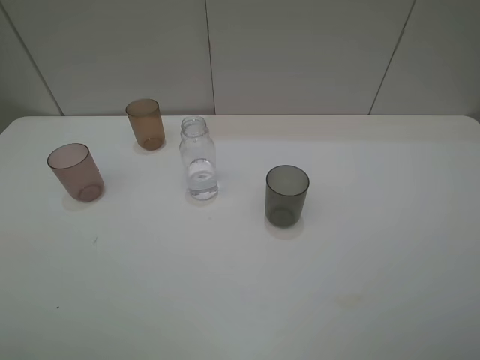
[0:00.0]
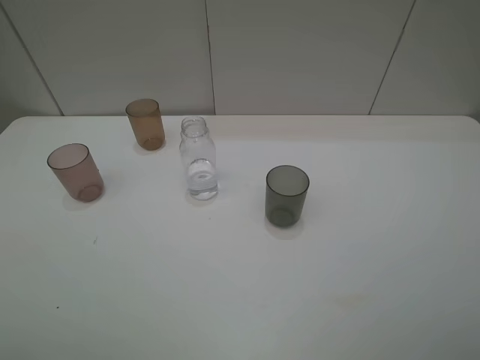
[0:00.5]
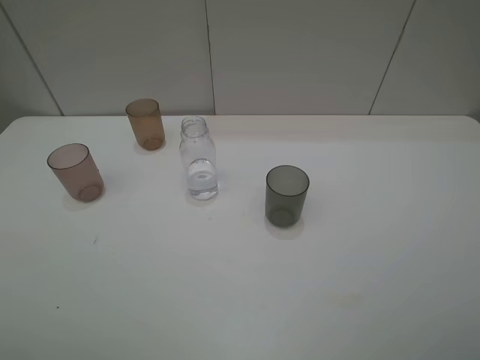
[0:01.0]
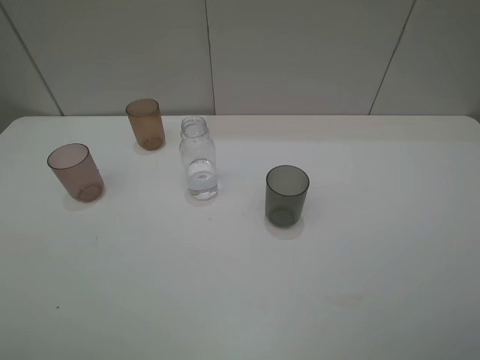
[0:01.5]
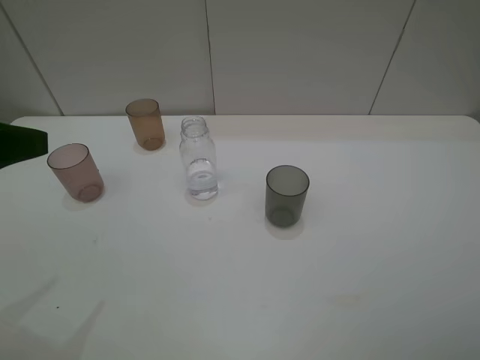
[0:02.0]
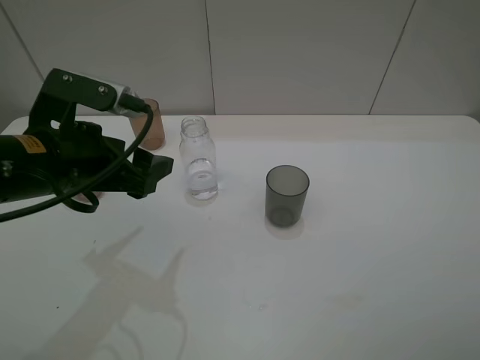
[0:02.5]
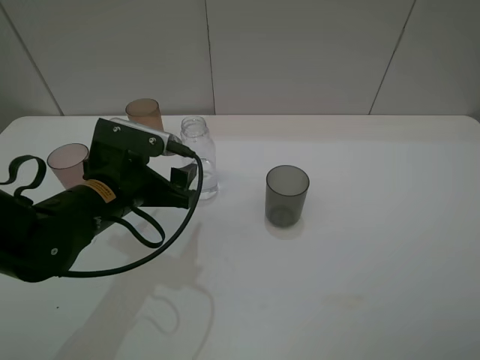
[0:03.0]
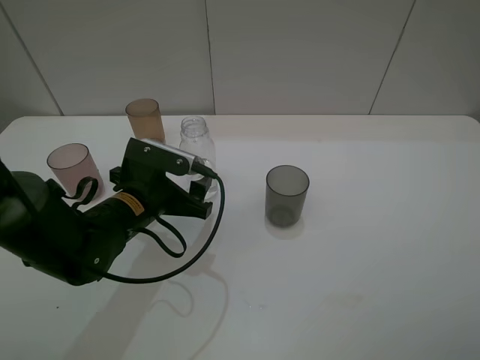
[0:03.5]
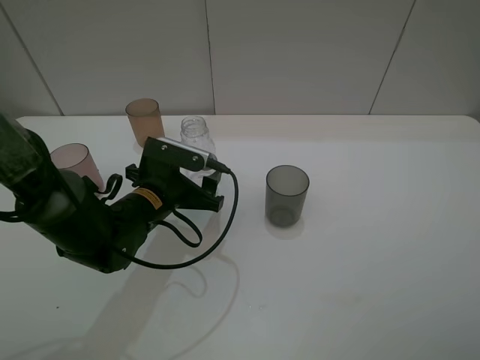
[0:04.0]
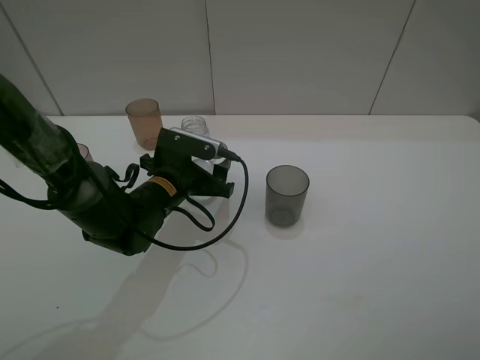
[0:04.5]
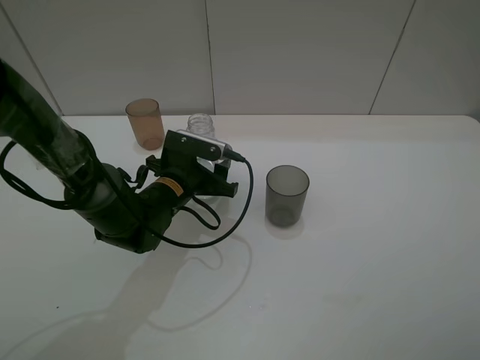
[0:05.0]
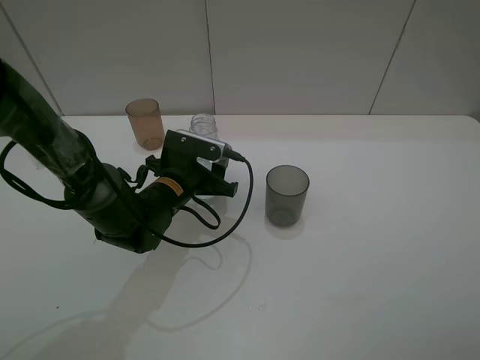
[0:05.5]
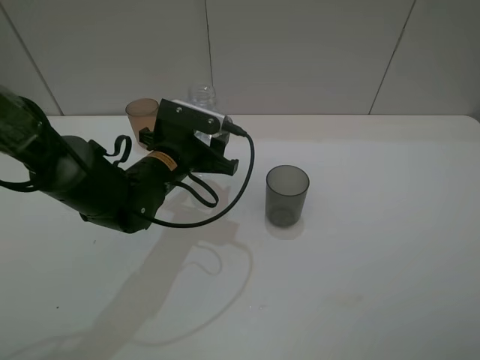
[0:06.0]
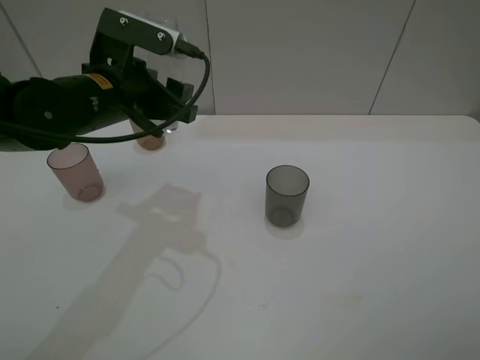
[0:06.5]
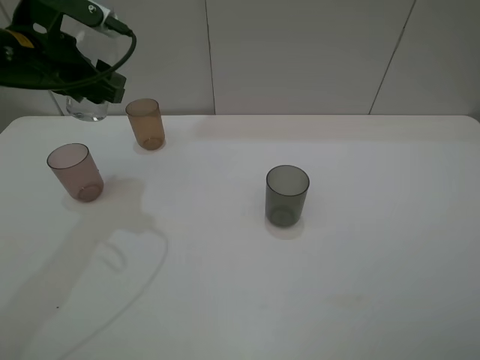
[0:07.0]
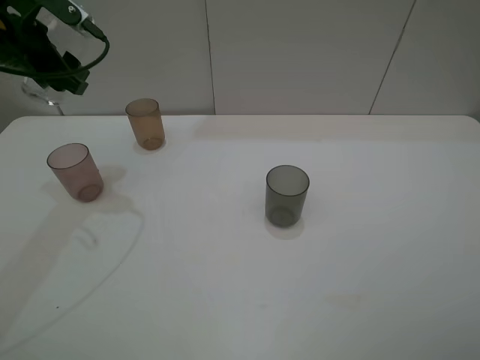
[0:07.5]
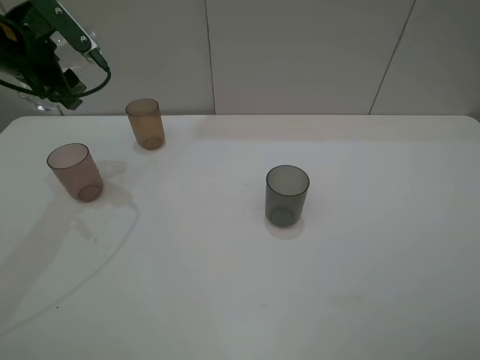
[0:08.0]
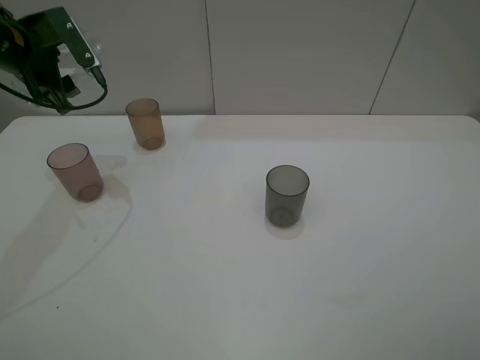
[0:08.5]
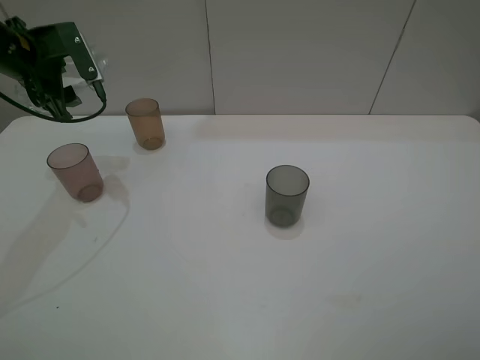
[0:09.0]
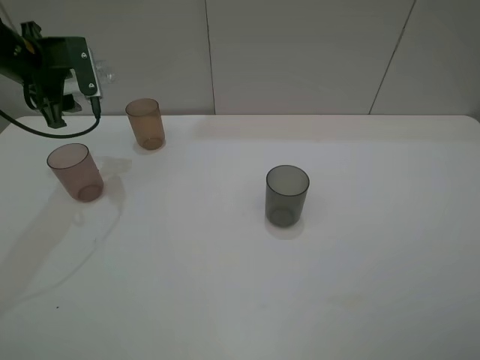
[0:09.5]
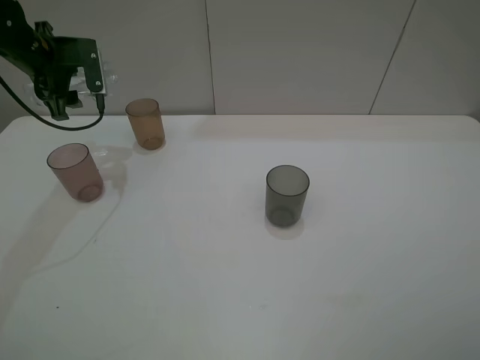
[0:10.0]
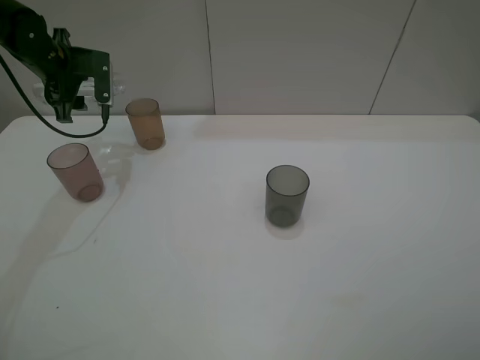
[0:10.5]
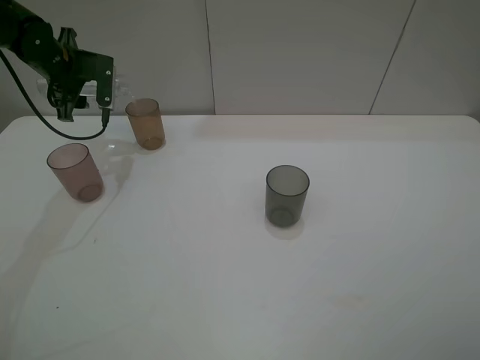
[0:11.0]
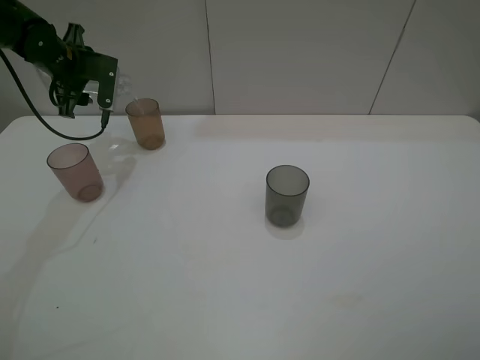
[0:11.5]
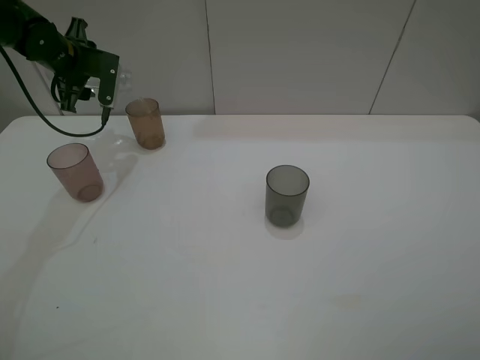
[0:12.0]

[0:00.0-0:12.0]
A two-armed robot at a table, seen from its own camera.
Task of the whole recording: pick up the bottle filled with water and pour water into the middle cup of the three cups.
Step, 0:00.0 to 0:04.5: Grasp the transparent bottle with the left gripper.
Step, 0:05.0 to 0:11.5: Pour water from transparent bottle to brown cup with the left gripper.
0:00.0 to 0:02.0: The left gripper heads forward, covering some 15 cm.
0:02.0 to 0:04.0: The left gripper moves downward, to the right and forward, roughly 30 cm.
0:04.0 to 0:06.0: The left gripper changes place by about 5 cm, and closes up.
0:06.0 to 0:08.0: The left gripper shifts roughly 25 cm to the left, upward and forward.
0:08.0 to 0:10.0: The left gripper goes approximately 5 cm forward.

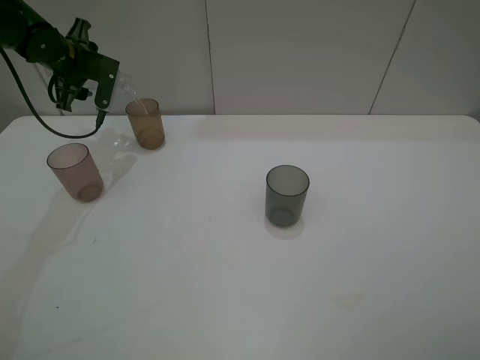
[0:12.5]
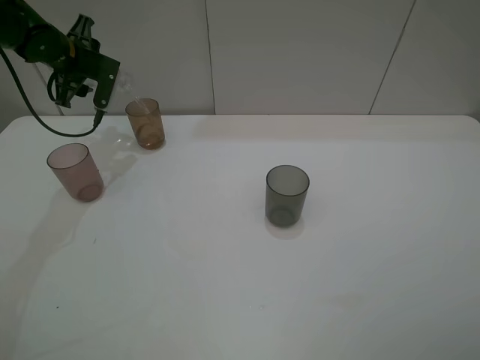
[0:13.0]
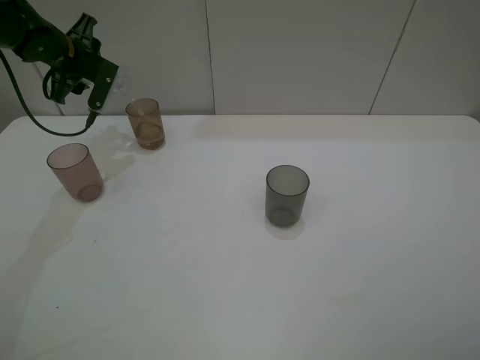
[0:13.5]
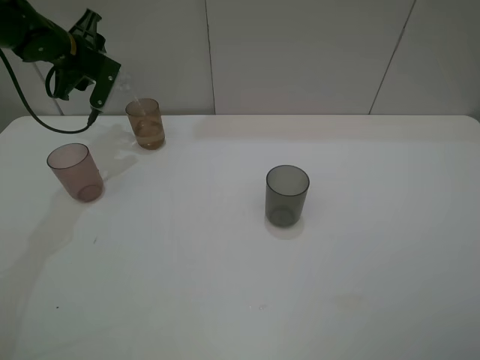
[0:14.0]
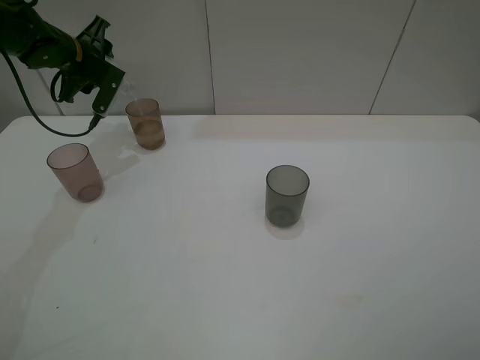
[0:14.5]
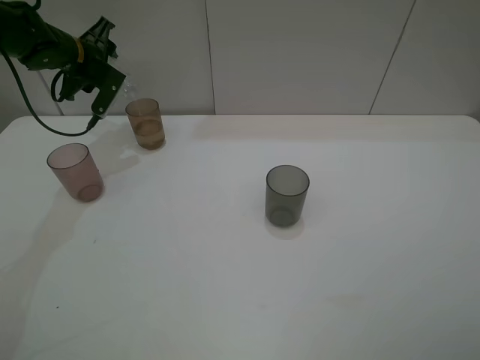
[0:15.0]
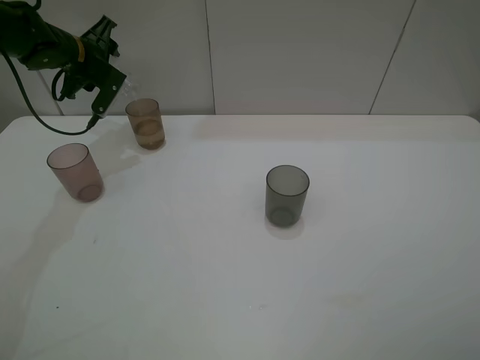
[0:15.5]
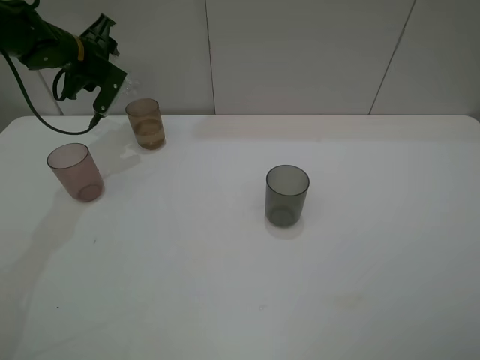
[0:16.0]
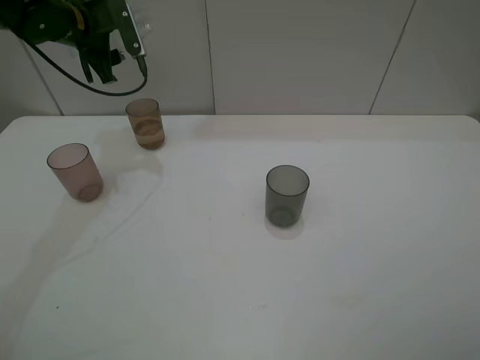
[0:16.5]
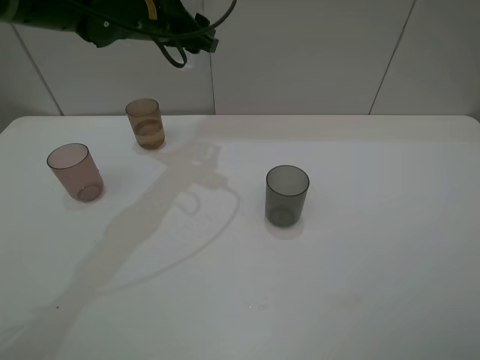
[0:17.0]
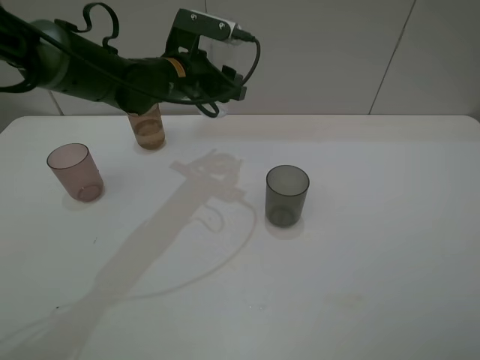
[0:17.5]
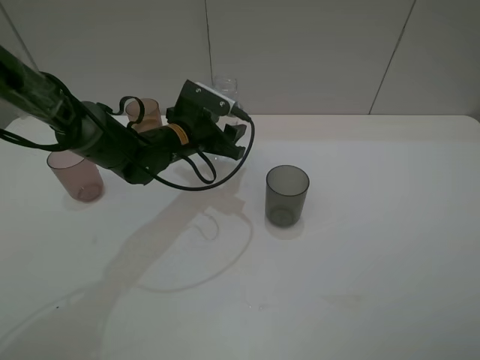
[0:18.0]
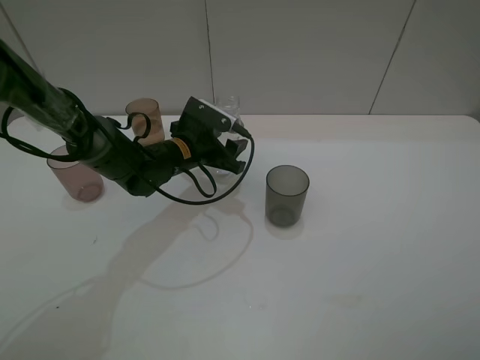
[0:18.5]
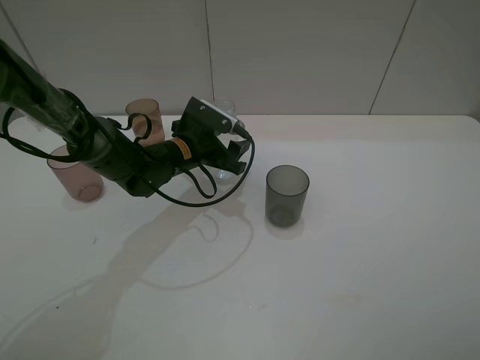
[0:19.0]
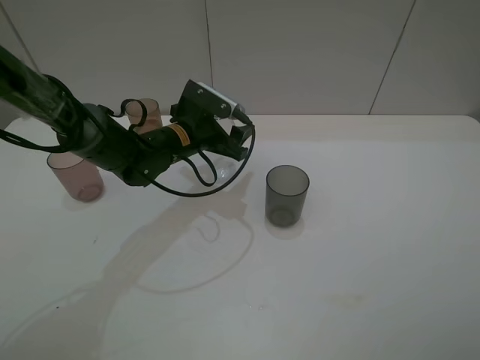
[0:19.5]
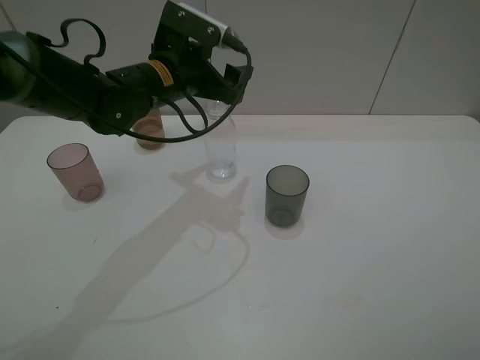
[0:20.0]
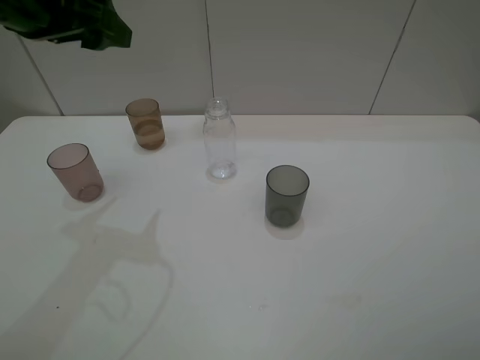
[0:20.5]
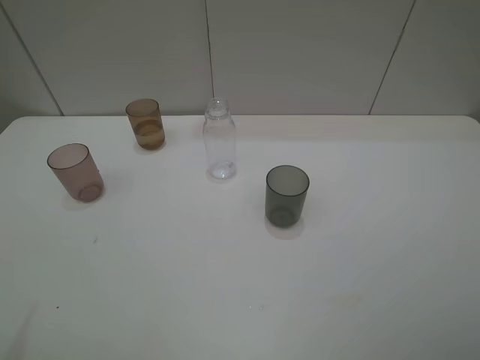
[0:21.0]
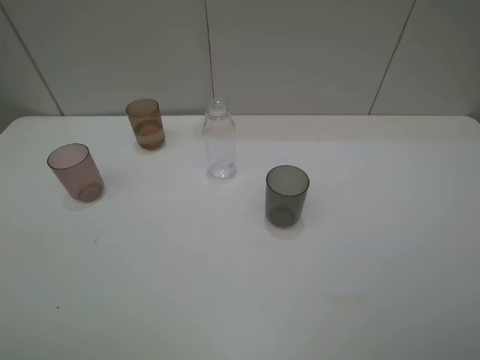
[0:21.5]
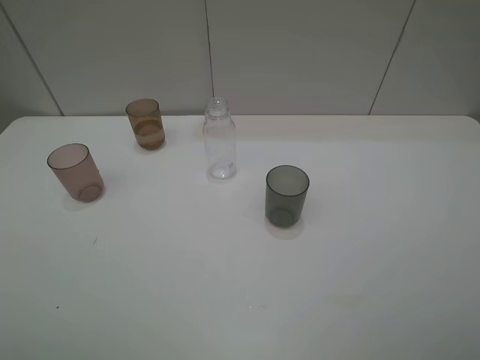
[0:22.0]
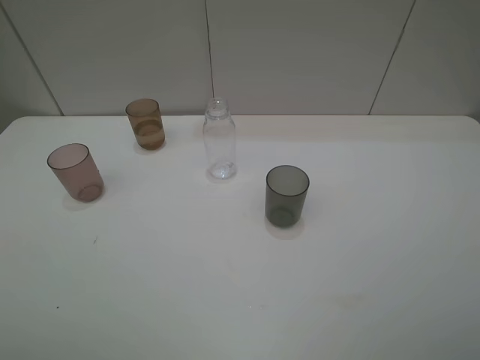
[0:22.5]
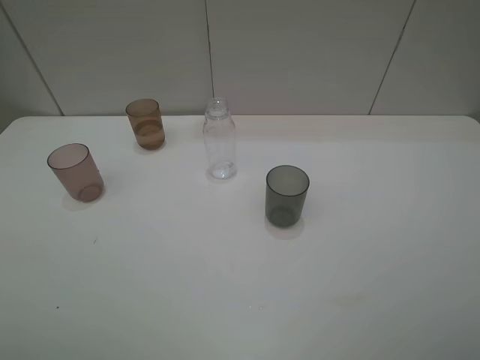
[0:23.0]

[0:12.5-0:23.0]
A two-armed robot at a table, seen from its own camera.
Task of the whole recording: pick up the bottle filled with water and pour water into the middle cup of the three cups.
Step, 0:12.5 to 0:19.5: Place the transparent bottle with the left gripper.
0:12.5 to 0:14.5: The grippers stay close to where they were, moving slightly.
0:14.5 to 0:16.5: The left gripper shifts some 5 cm upward.
0:16.5 to 0:19.0: The left gripper shifts about 25 cm downward, to the right and backward, and opens.
0:19.0 to 0:21.0: The left gripper shifts some 50 cm upward, backward and to the left, and opens up.

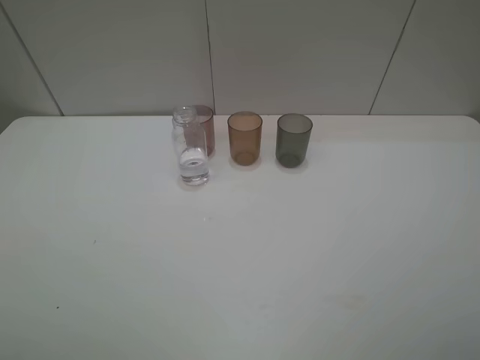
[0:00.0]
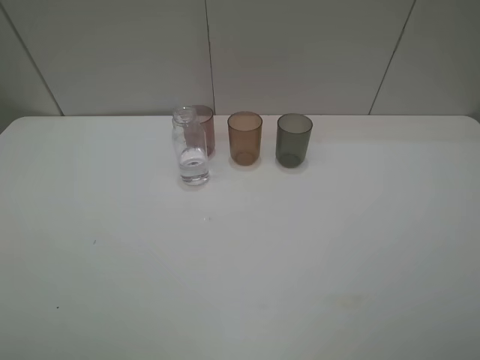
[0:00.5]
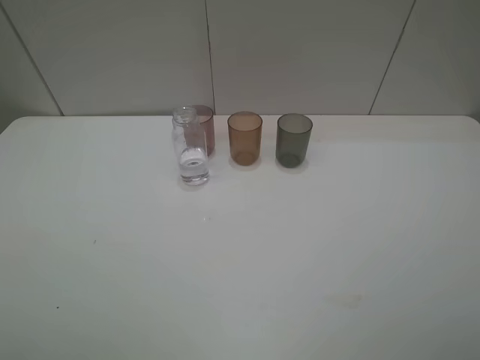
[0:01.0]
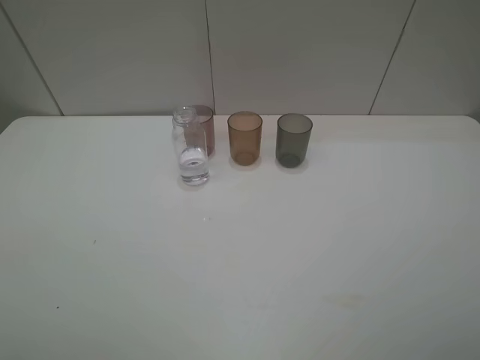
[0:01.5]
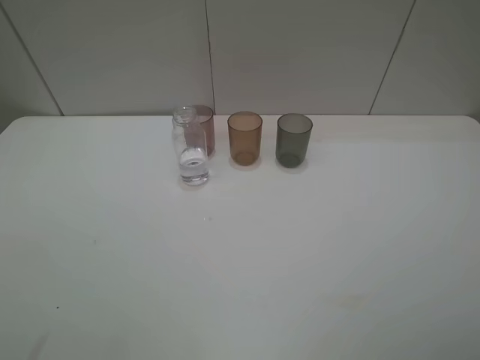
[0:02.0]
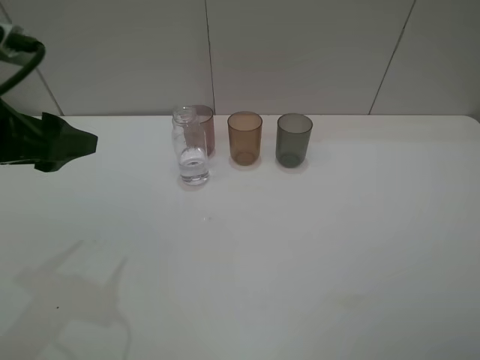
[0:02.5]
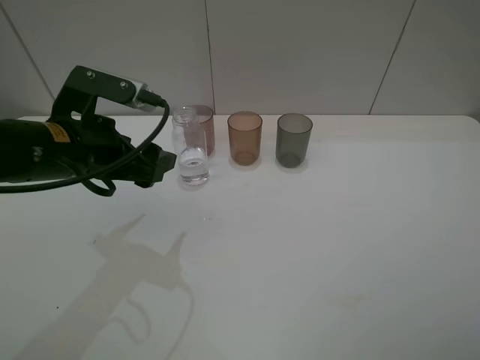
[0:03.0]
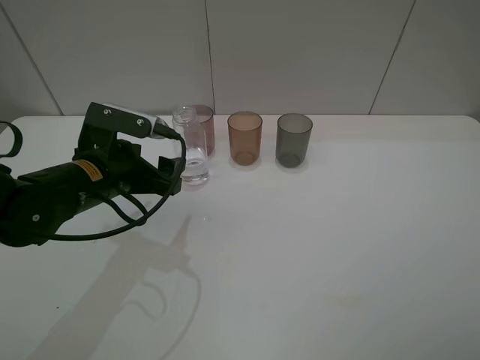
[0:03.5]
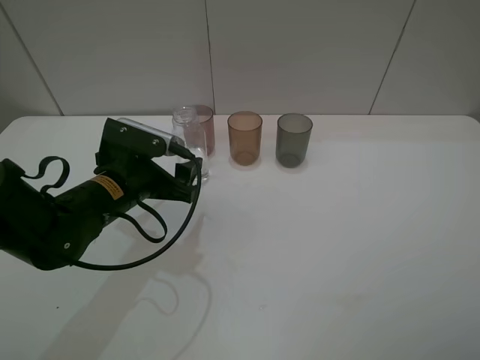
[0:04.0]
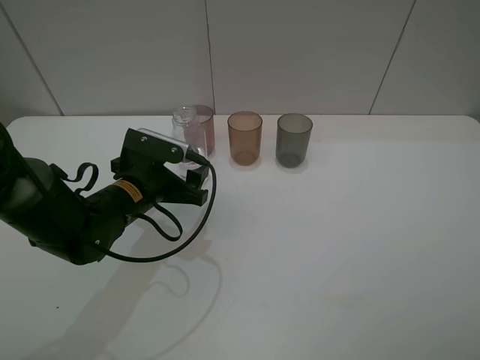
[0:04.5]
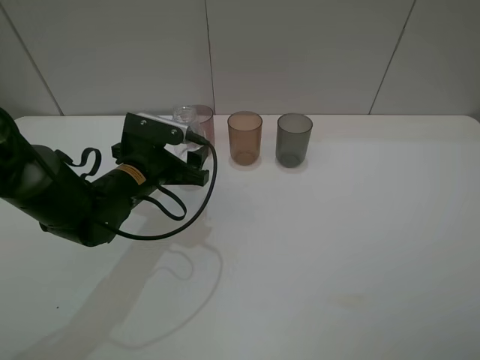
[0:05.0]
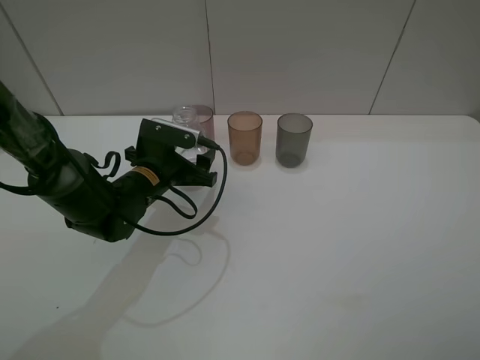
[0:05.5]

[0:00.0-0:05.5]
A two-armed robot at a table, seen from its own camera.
Task of the whole recording: pick up the bottle filled with water and pour water into the middle cup of the three cups.
0:02.0 to 0:03.5: The left gripper is displaced forward, downward and to the right by approximately 25 cm.
0:03.5 to 0:05.5: The left gripper moves downward and forward, approximately 10 cm.
